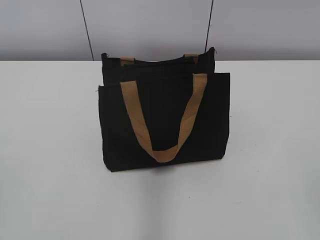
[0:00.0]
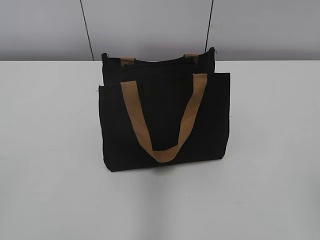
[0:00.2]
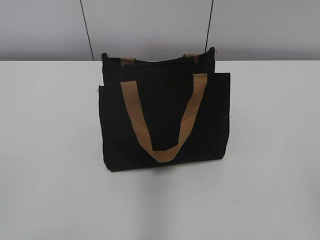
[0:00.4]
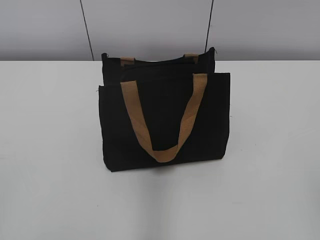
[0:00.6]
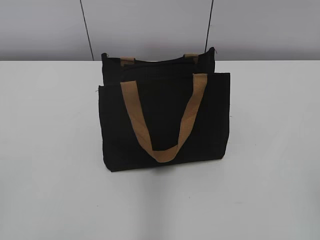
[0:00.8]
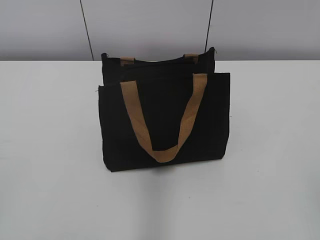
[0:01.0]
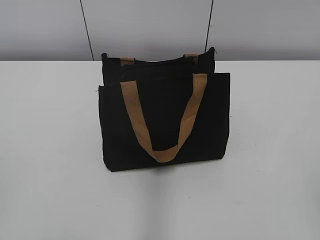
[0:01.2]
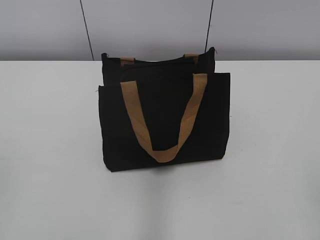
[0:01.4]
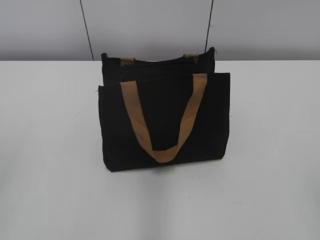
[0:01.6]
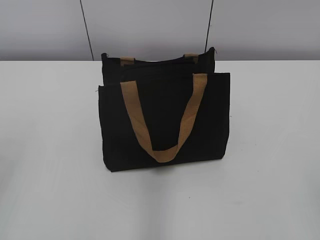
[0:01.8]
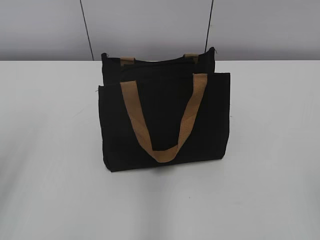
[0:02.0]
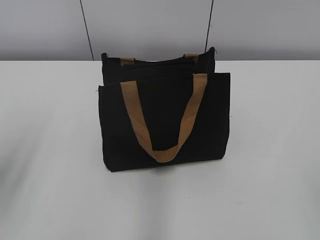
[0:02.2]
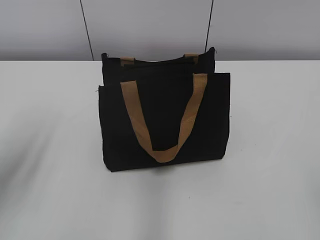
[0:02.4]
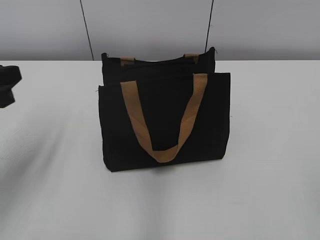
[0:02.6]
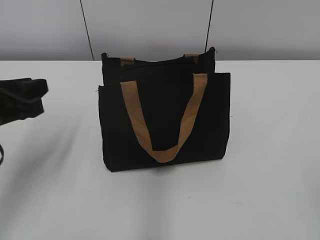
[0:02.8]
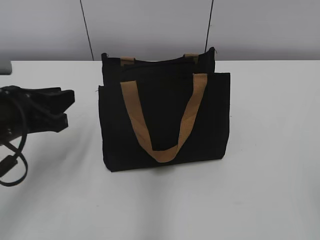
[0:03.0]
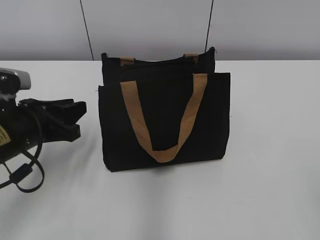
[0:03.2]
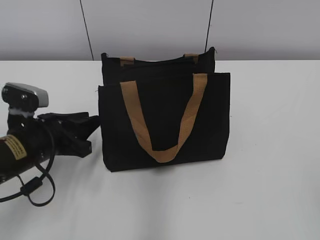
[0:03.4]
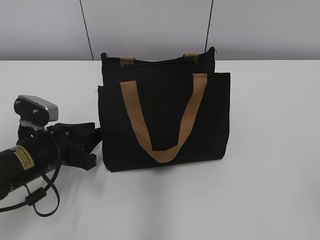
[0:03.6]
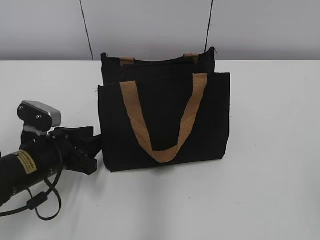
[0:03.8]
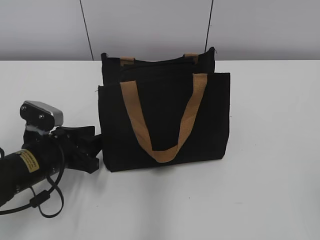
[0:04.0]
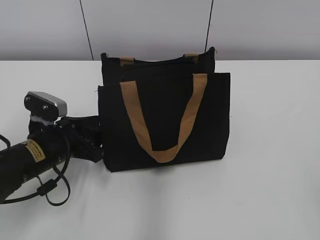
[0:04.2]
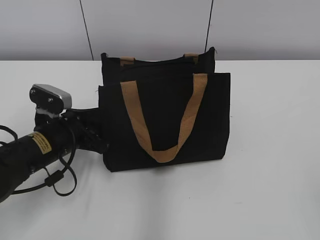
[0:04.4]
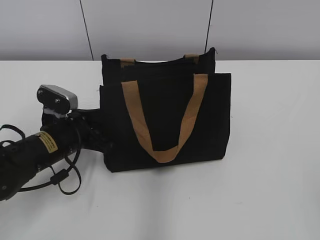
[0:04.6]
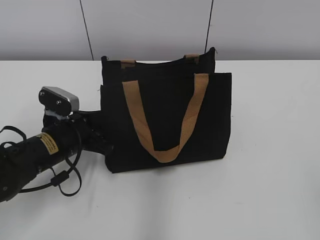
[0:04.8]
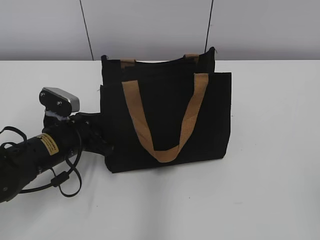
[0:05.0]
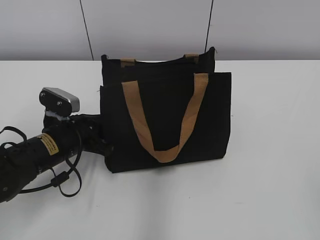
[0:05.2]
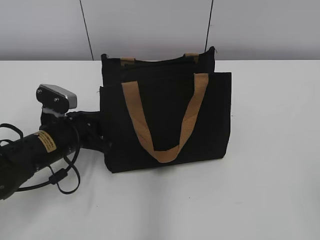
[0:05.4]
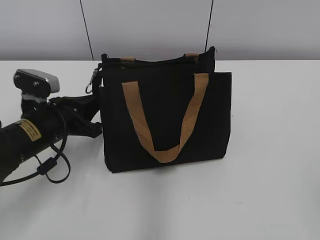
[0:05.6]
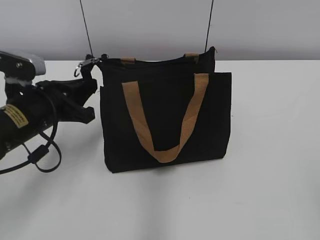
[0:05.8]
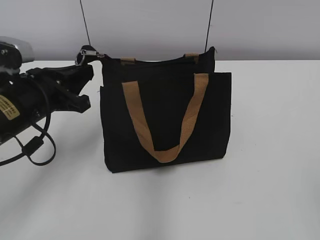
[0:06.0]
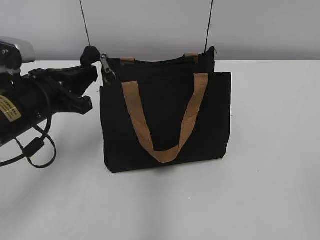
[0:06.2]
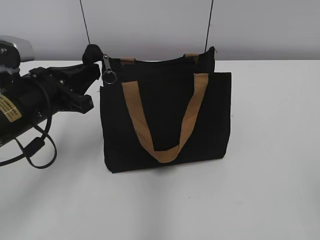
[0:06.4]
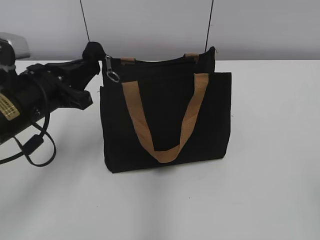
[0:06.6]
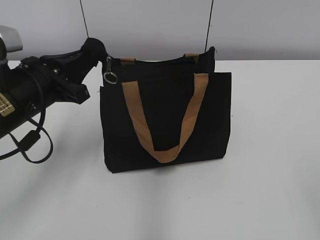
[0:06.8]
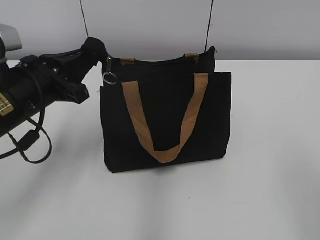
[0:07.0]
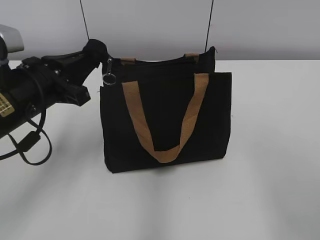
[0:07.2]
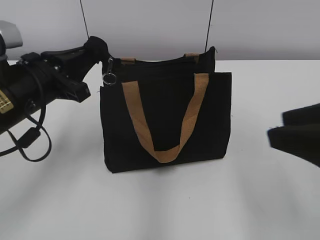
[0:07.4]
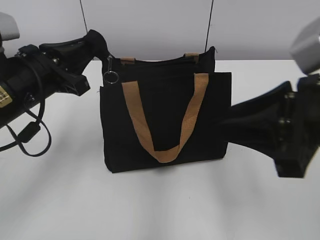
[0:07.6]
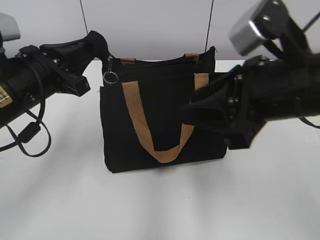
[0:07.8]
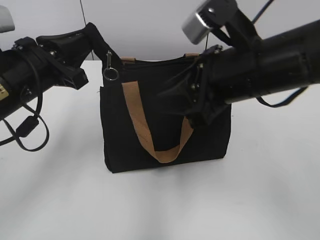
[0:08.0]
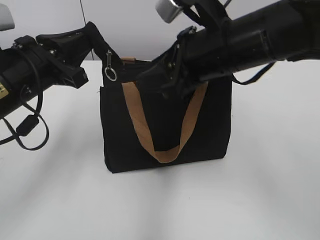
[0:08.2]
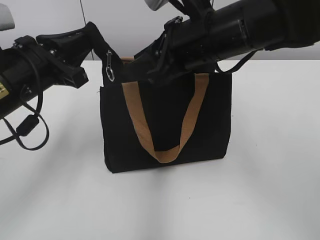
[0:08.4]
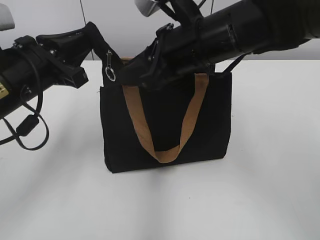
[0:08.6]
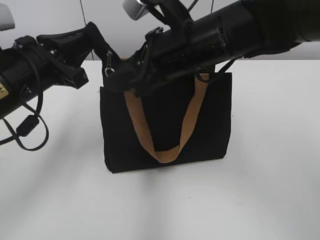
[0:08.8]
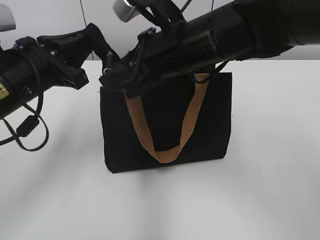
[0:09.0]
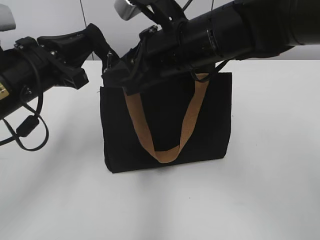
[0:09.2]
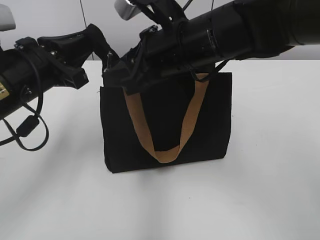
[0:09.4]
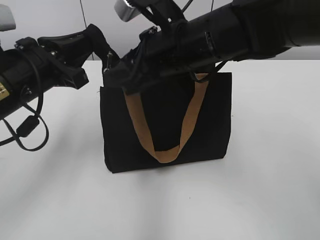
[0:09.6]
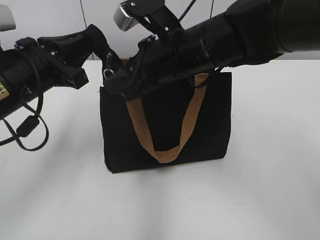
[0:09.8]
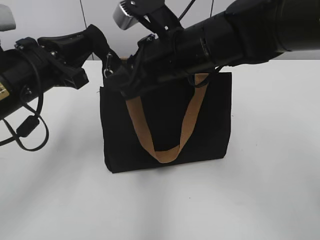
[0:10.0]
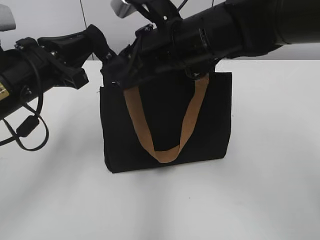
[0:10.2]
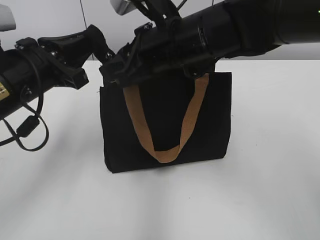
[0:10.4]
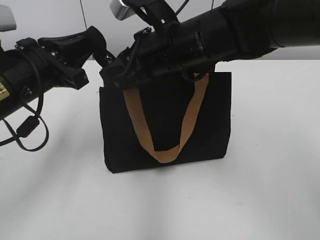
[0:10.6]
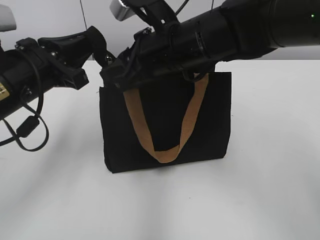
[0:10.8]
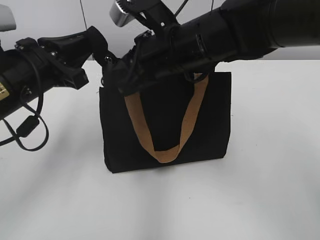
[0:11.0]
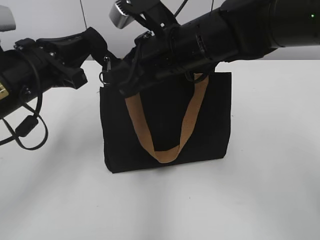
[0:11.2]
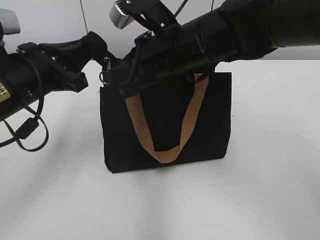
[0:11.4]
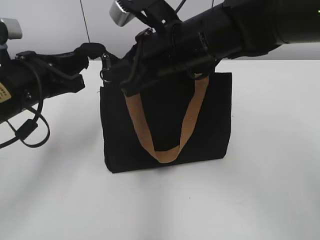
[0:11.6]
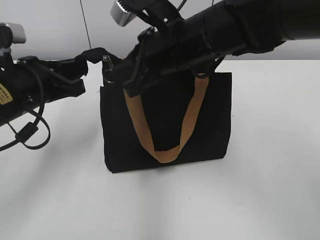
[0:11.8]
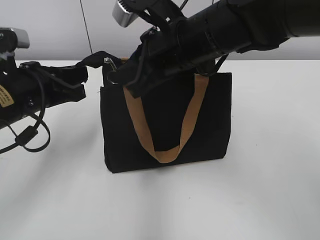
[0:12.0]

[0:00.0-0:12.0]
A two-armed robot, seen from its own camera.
0:01.6 to 0:03.0: The left gripper heads forward, downward and to the right, covering about 25 cm.
0:03.0 to 0:04.4: The left gripper goes about 10 cm downward.
0:04.4 to 0:06.0: The left gripper moves upward, approximately 10 cm, and closes.
0:06.0 to 0:07.6: The right gripper travels forward and to the left by about 20 cm.
0:07.6 to 0:09.0: The right gripper heads to the left and forward, covering approximately 20 cm.
0:09.0 to 0:10.4: The grippers move only a little.
0:10.4 to 0:12.0: The right gripper closes up.

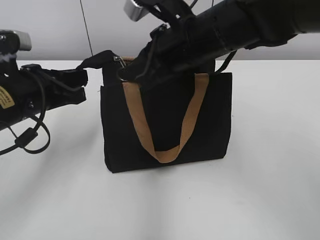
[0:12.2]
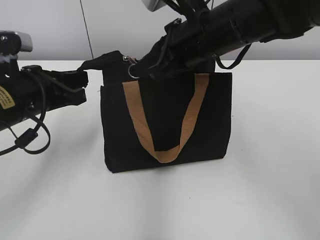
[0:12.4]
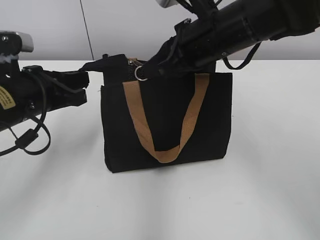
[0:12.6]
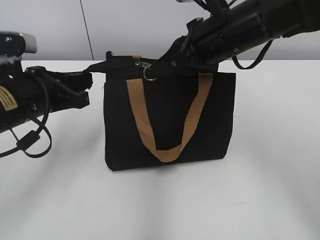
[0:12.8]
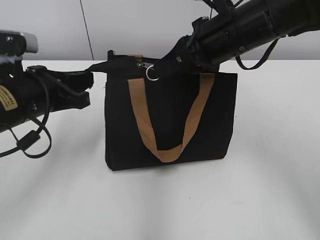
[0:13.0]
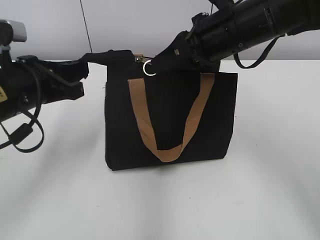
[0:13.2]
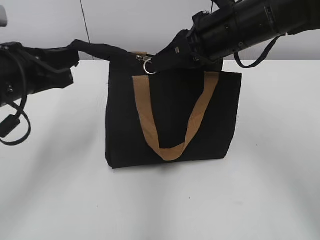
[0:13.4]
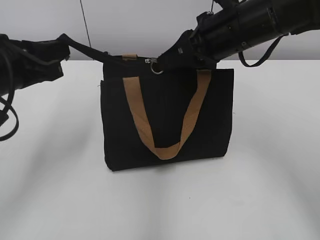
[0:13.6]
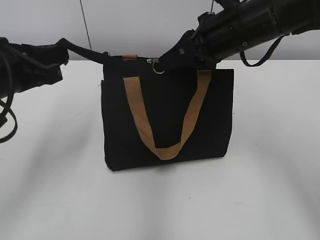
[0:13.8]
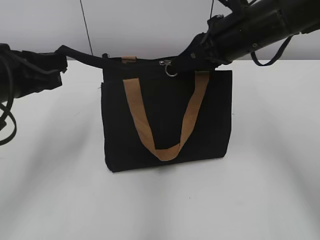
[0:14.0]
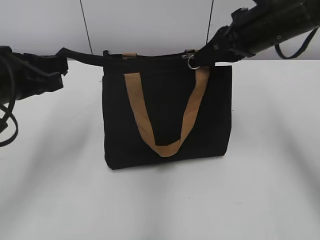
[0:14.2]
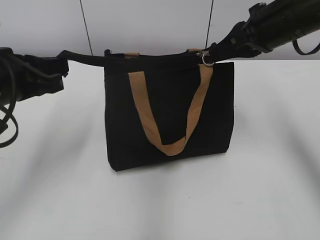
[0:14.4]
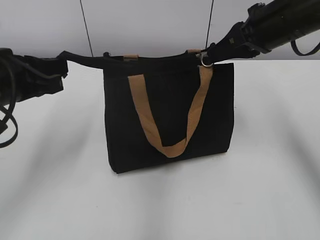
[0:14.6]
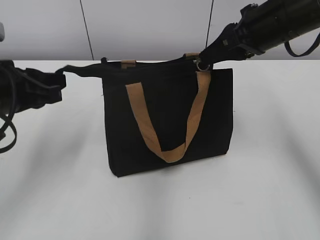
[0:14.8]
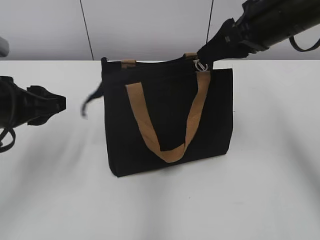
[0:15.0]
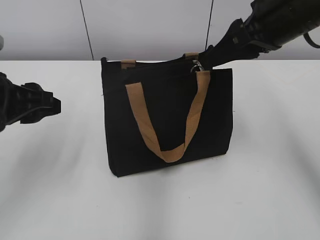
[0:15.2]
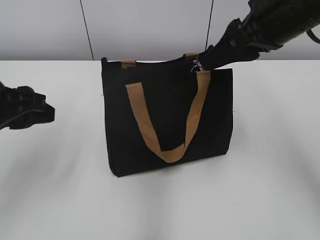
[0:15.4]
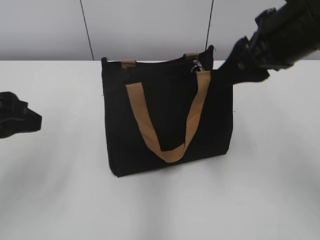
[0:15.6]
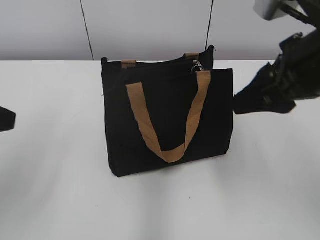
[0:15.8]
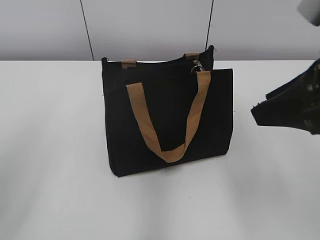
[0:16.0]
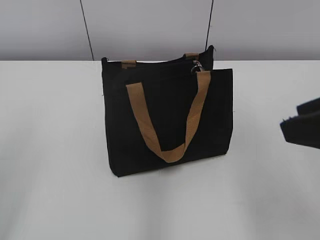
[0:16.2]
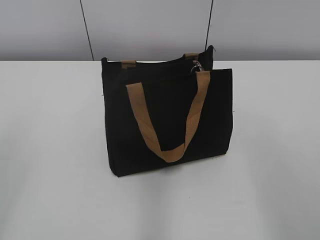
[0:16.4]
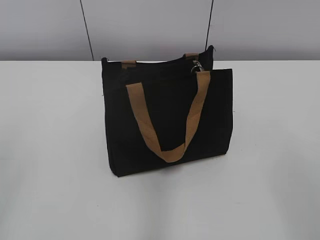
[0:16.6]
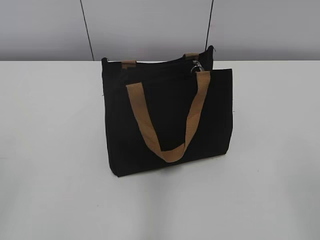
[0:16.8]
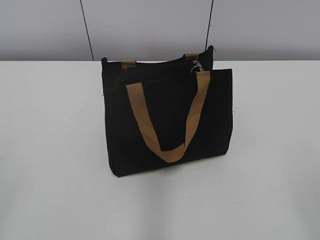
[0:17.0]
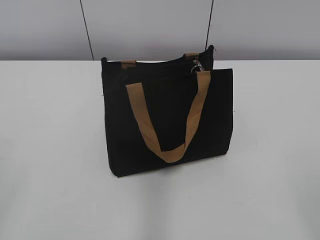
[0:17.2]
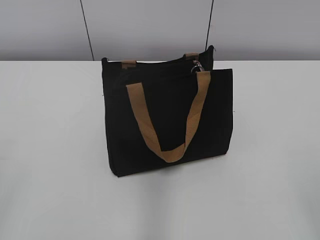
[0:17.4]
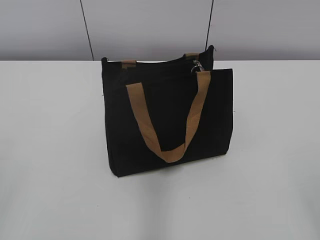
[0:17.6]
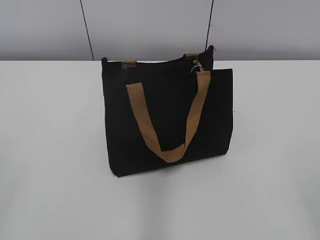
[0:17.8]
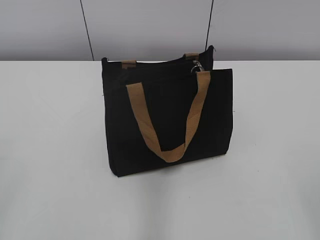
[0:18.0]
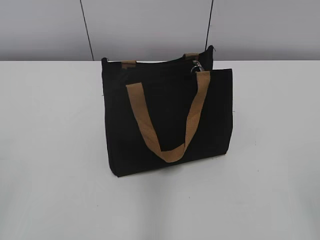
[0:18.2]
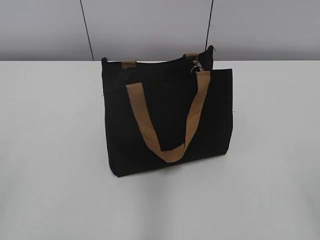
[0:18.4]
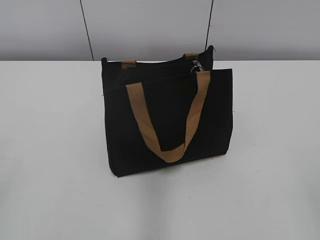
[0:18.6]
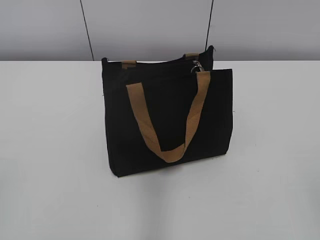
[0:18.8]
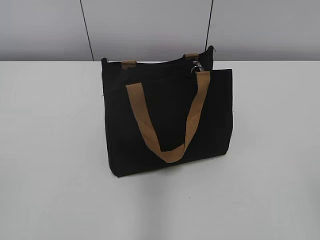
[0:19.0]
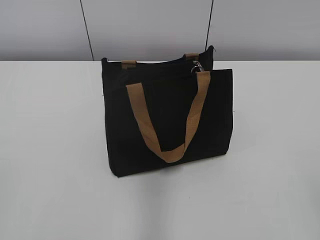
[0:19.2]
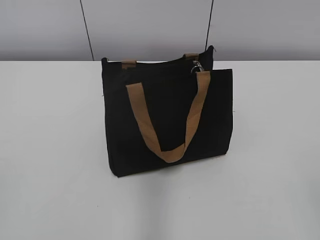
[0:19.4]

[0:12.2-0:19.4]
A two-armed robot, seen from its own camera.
Step, 0:12.2 to 0:14.8: Grab the zipper with your left hand.
0:12.2 to 0:13.6: The right gripper moves to the right, roughly 5 cm, while the left gripper changes place by approximately 5 cm.
0:13.6 to 0:15.0: The left gripper opens its fingers. Meanwhile the right gripper shifts about 5 cm to the right, and opens its fingers.
0:15.0 to 0:16.6: The right gripper heads backward, covering some 30 cm, while the left gripper is displaced backward, upward and to the left by about 20 cm.
